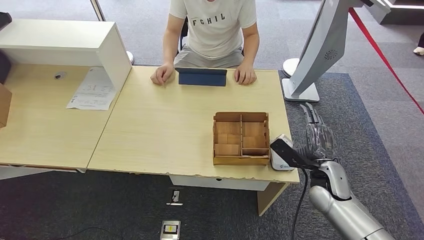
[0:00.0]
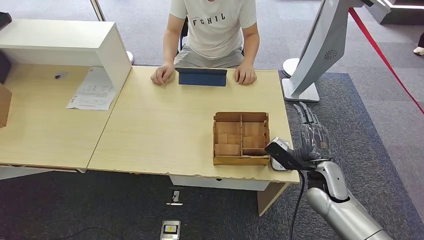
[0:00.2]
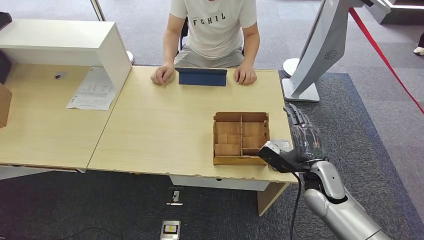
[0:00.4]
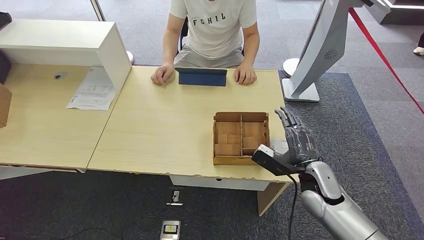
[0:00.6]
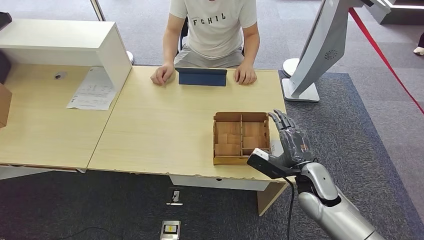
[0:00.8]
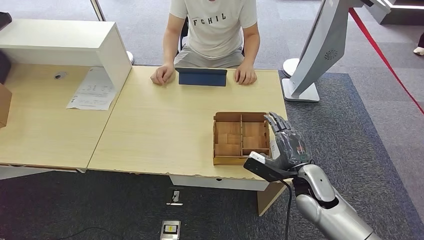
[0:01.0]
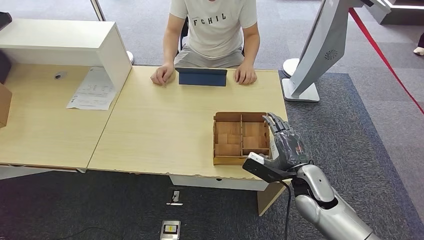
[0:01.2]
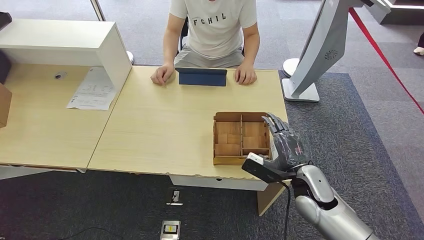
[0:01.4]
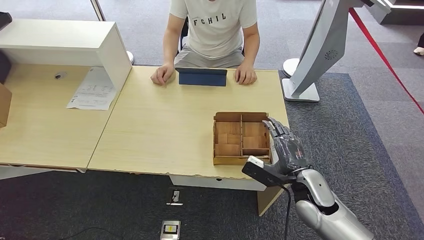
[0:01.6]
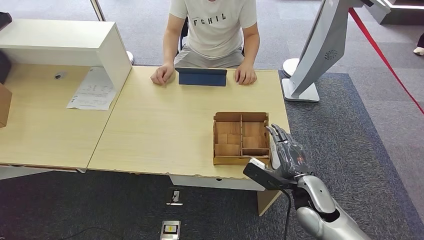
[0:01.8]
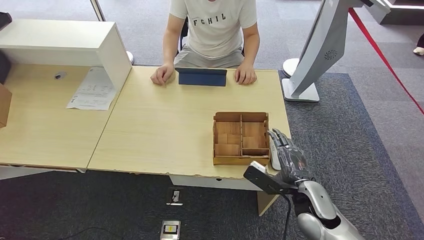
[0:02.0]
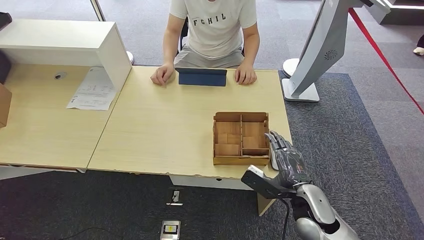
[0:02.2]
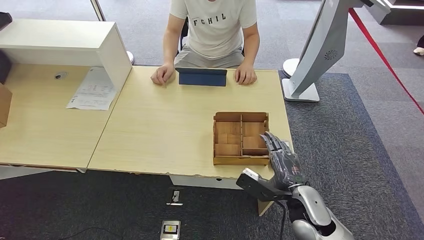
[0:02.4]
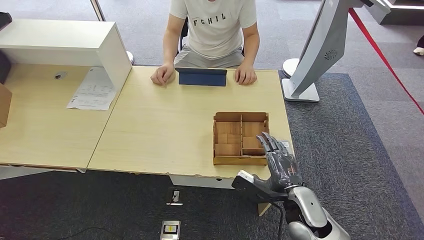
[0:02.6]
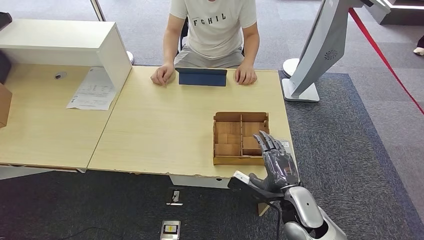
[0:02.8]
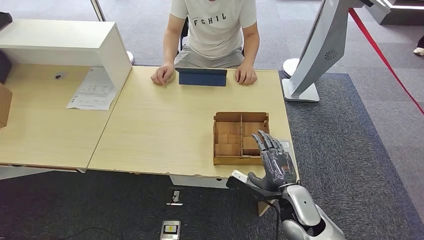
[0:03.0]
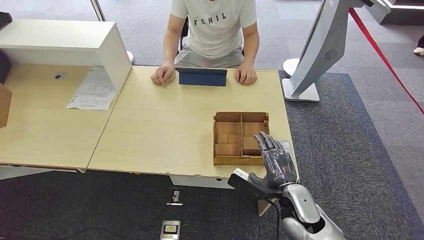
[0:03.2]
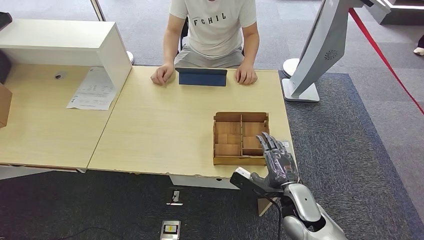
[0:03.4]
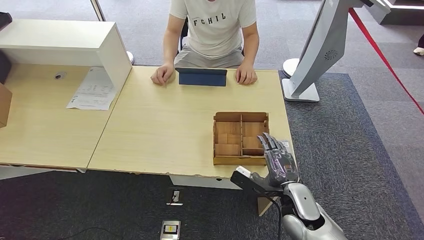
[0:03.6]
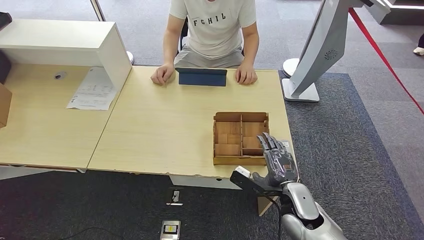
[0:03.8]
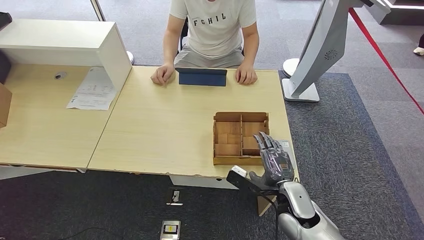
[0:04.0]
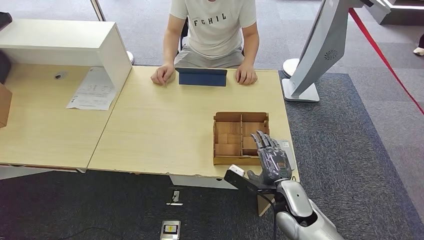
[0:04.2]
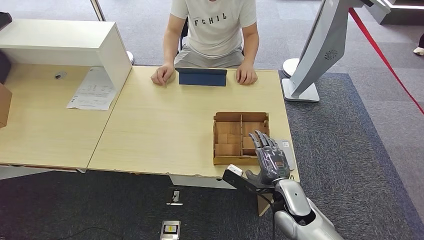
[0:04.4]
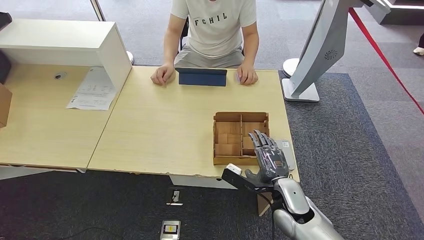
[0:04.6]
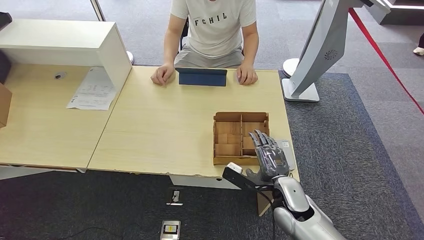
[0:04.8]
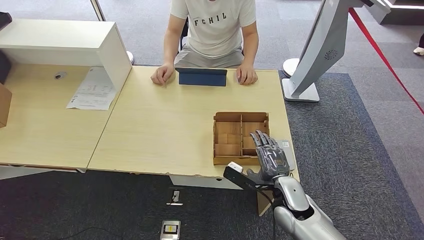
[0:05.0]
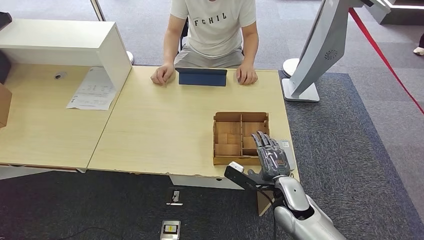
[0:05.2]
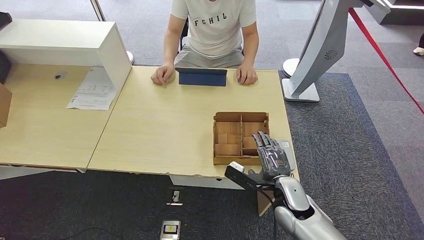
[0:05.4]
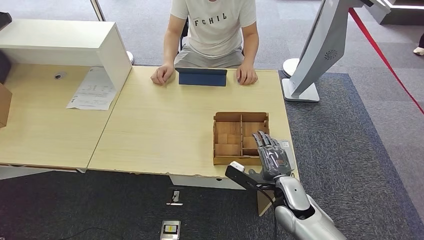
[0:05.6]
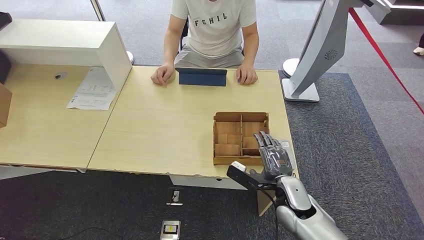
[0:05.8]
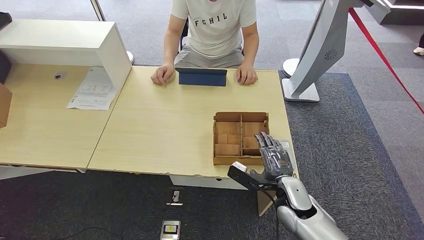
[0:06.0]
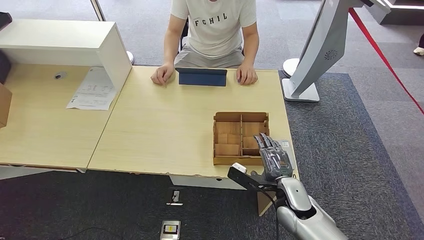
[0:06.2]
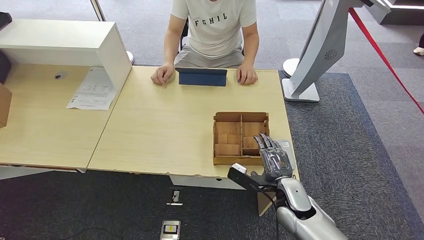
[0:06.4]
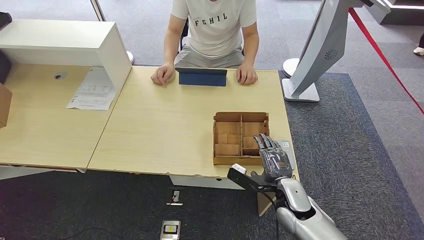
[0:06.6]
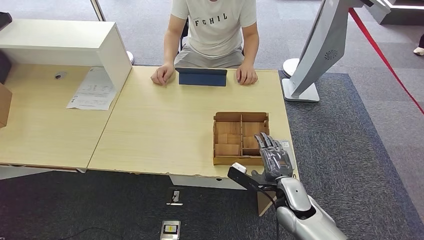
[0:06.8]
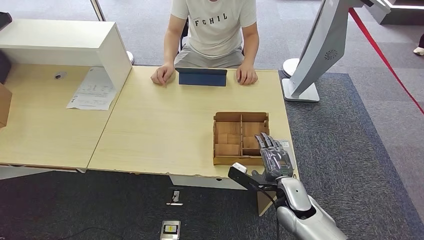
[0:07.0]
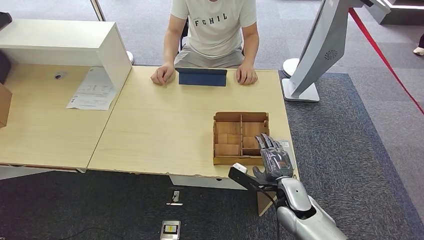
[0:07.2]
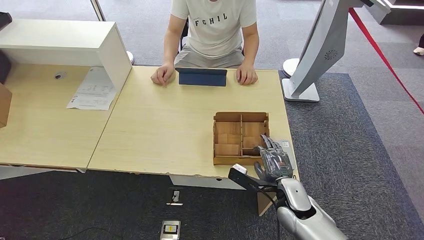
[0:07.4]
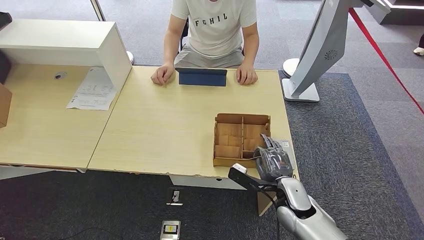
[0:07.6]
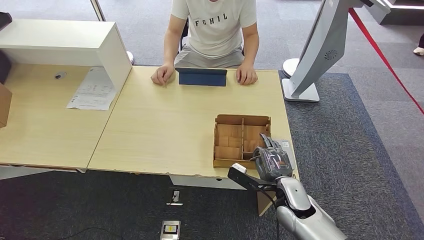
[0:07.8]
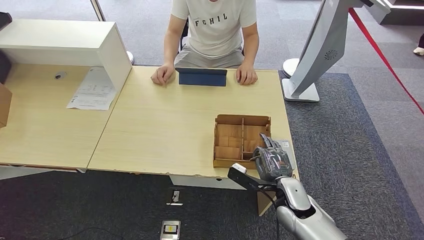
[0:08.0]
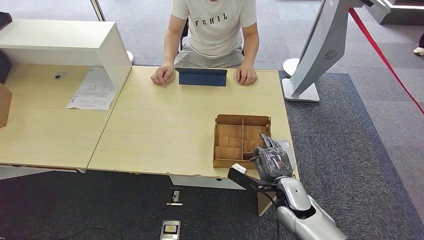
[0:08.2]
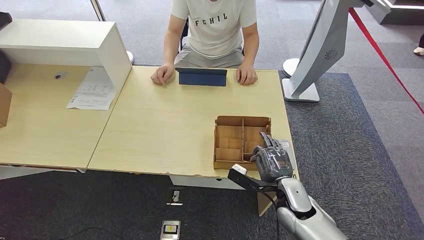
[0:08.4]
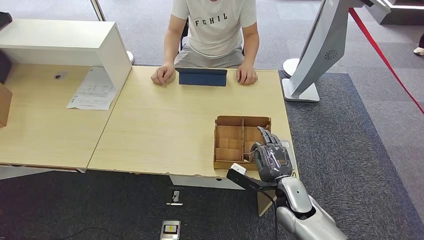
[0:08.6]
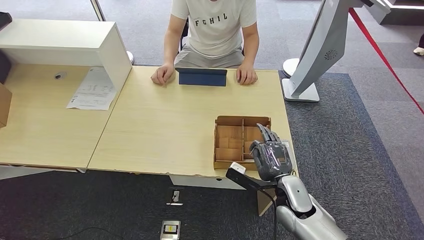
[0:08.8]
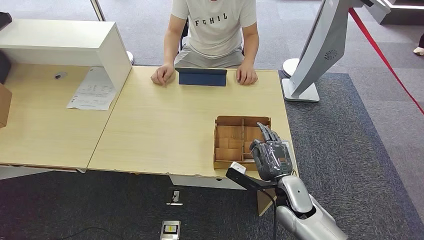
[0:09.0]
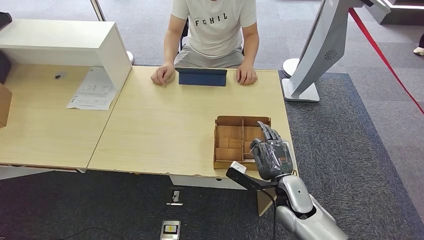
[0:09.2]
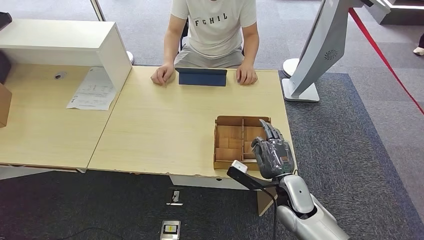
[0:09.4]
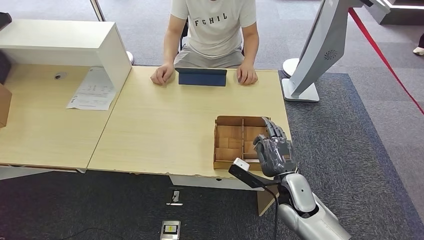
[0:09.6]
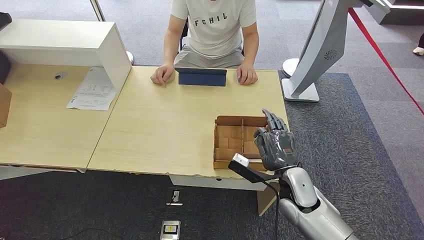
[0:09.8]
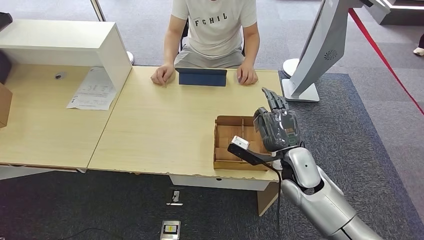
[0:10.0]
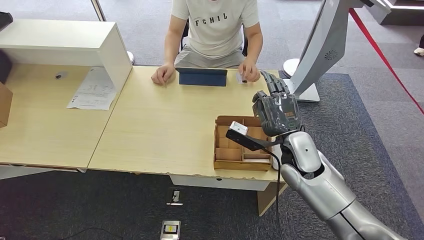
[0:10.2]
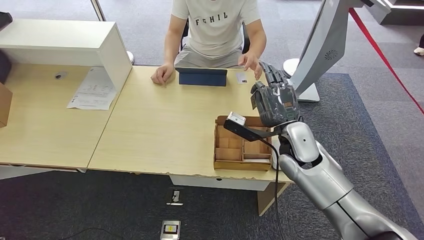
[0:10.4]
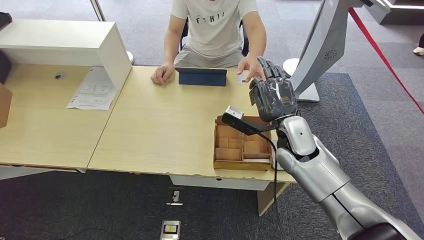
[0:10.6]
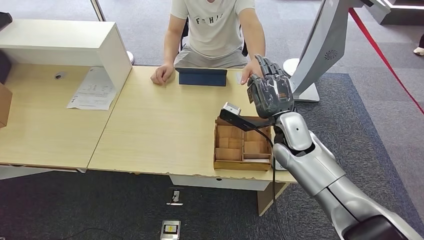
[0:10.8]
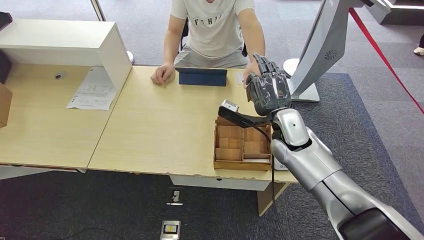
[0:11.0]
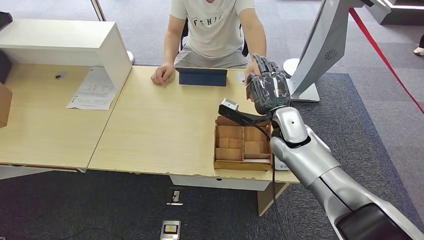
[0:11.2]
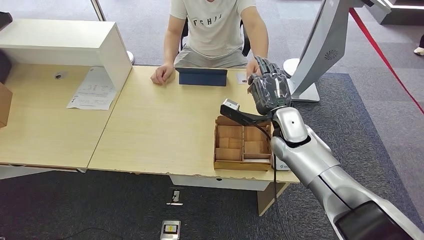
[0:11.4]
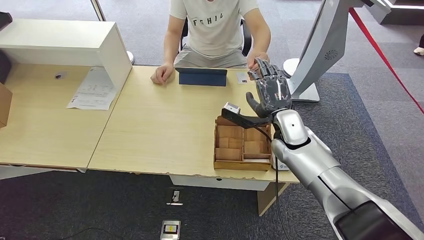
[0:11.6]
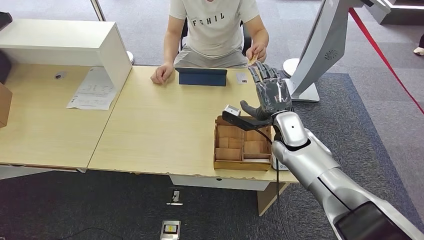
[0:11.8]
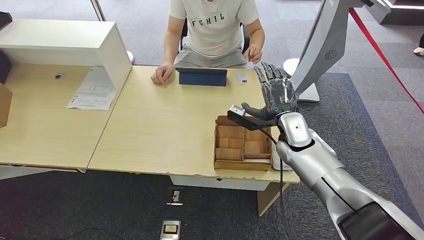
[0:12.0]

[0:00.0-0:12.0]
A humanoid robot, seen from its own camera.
Step, 0:01.0 to 0:11.0: Pick up the room key from the key card box.
0:00.0 to 0:01.6: The right hand goes some 5 cm to the left.
0:01.6 to 0:03.0: The right hand shifts by approximately 5 cm.
0:03.0 to 0:06.0: The hands stay close to where they were, moving slightly.
0:06.0 to 0:07.6: Neither hand changes place.
0:07.6 to 0:09.0: The hands make only small movements.
0:09.0 to 0:10.4: The right hand shifts about 15 cm upward and forward.
0:10.4 to 0:12.0: There are only small adjustments of the hands.

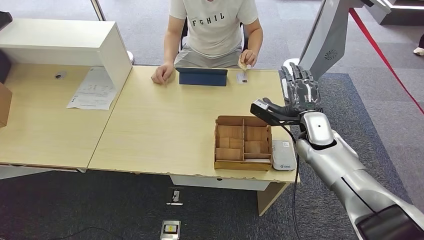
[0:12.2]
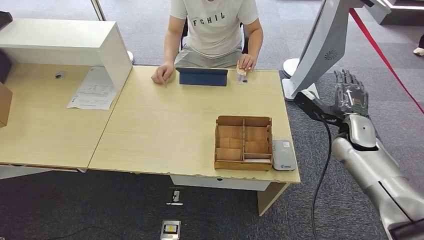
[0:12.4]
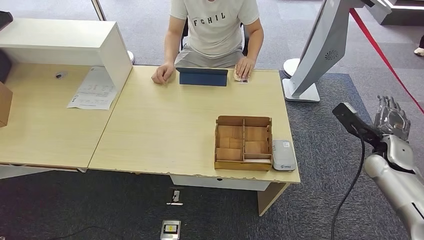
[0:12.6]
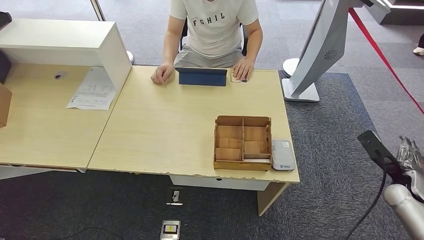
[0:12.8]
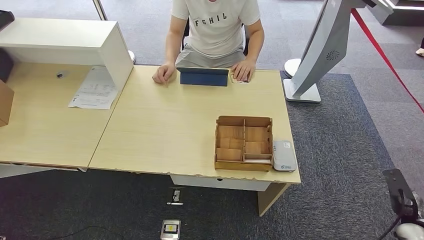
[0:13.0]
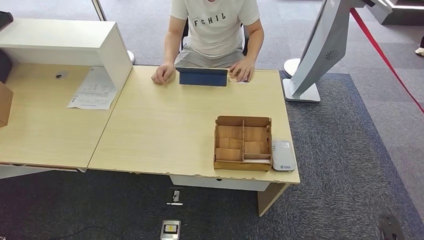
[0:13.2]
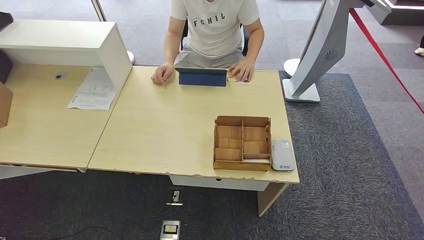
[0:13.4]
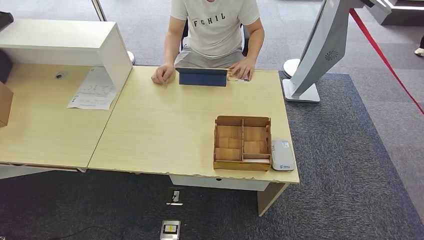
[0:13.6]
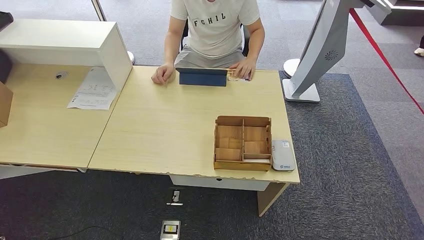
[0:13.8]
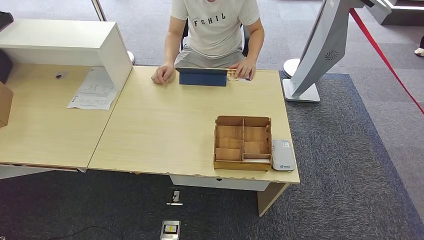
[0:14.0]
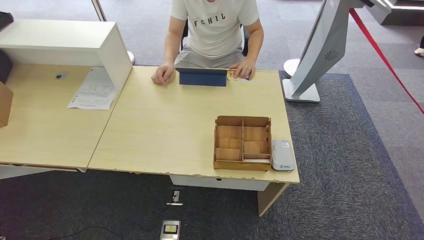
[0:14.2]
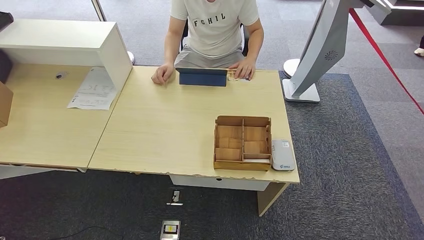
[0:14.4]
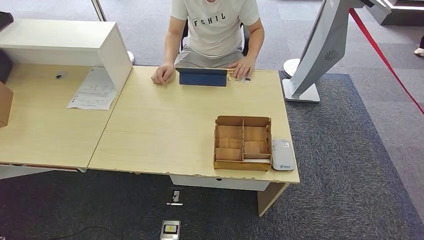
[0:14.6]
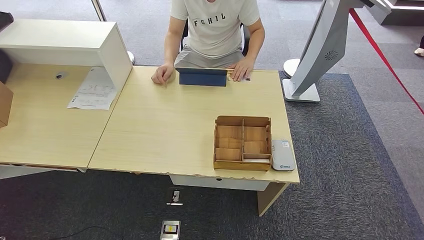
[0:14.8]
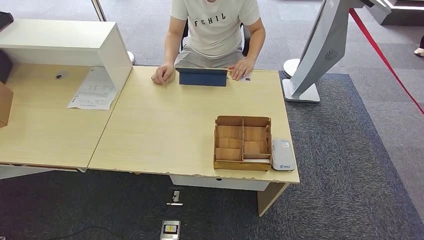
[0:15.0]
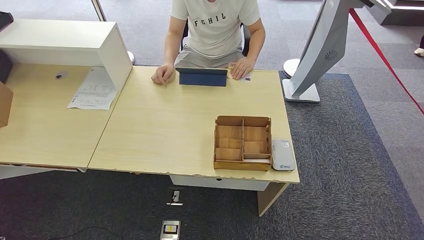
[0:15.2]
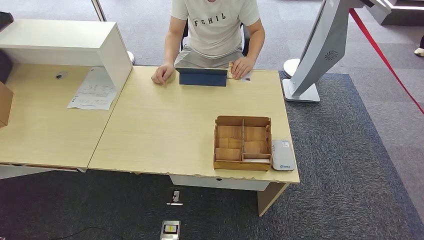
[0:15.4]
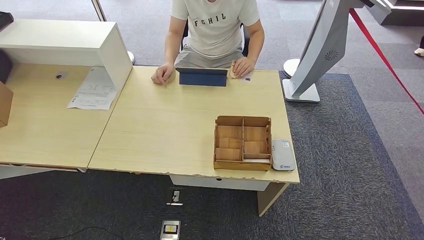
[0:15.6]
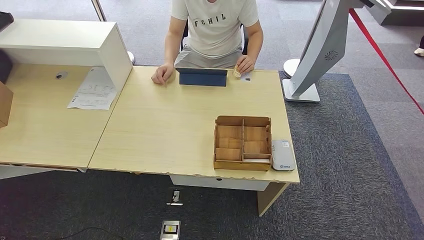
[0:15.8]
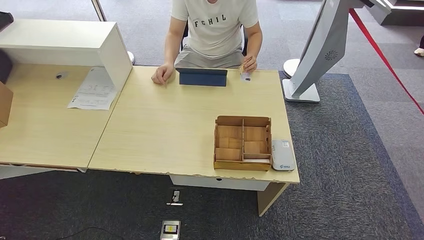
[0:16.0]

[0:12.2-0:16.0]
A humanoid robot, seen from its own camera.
Step, 0:12.2 to 0:16.0: Hand the room key to the person.
0:12.2 to 0:13.4: The right hand is displaced backward, downward and to the right by about 50 cm.

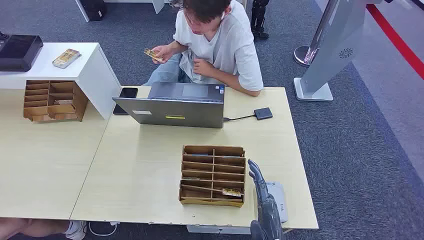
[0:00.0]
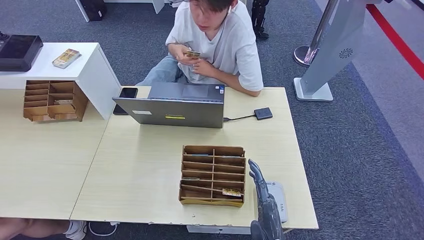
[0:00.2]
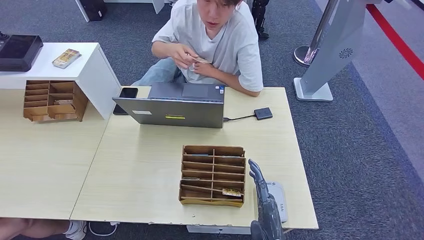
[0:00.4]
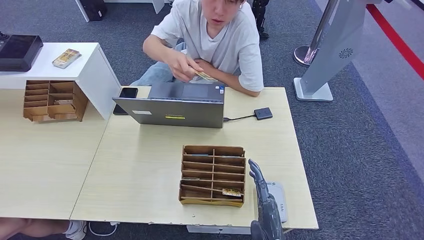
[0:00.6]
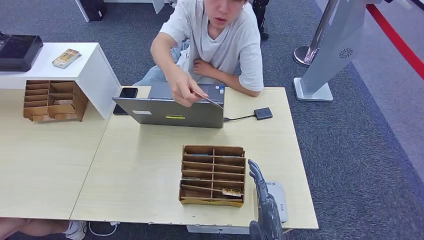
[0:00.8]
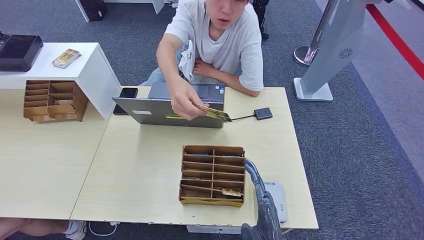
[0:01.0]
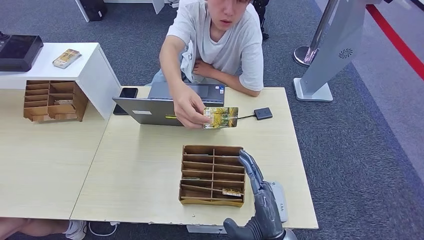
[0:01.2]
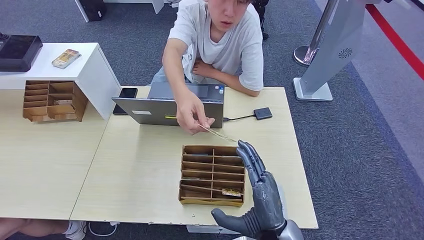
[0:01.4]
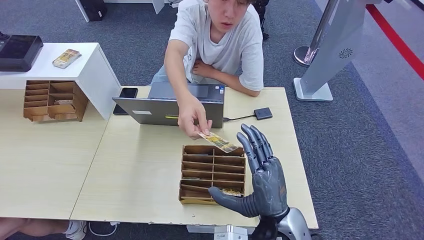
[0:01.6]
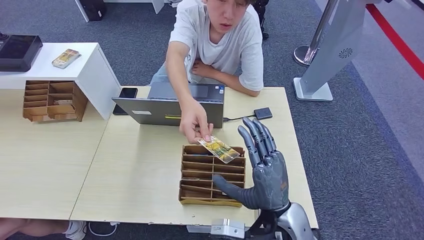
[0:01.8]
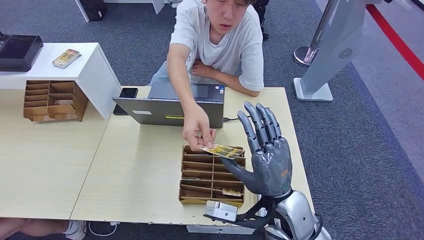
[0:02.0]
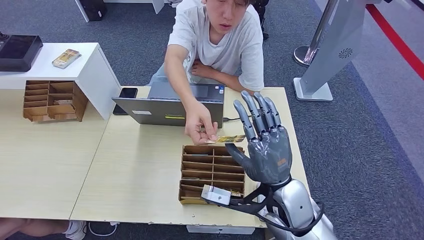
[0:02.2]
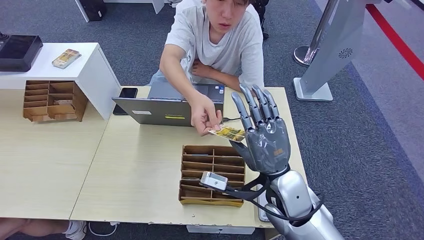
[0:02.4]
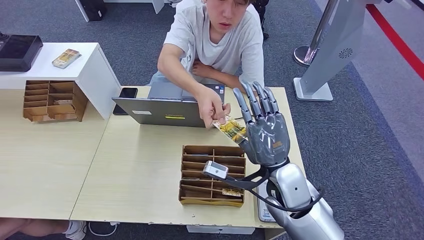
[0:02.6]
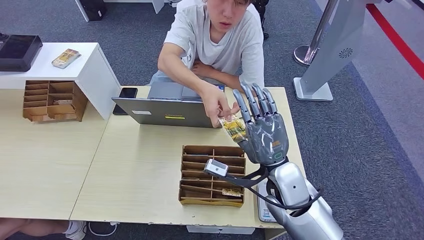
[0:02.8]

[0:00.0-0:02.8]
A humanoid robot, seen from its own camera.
0:01.4 to 0:02.8: The right hand heads forward and upward, covering about 15 cm.
